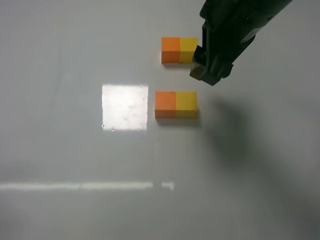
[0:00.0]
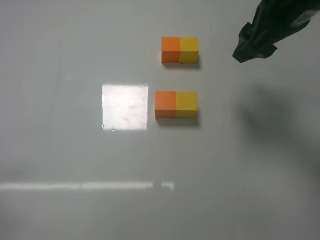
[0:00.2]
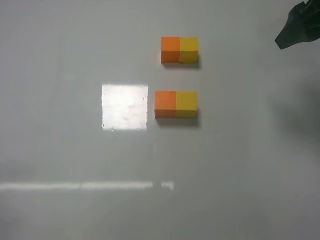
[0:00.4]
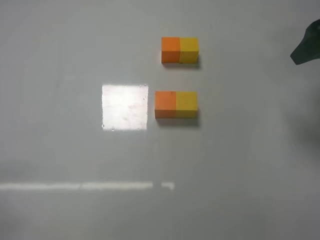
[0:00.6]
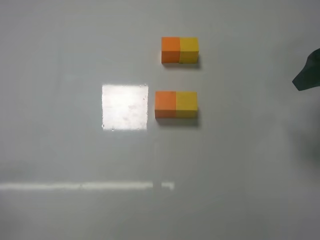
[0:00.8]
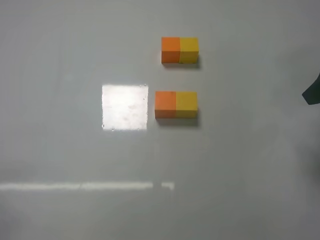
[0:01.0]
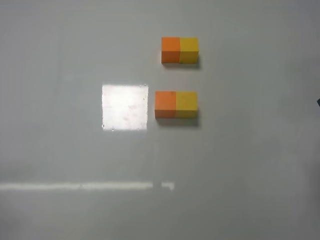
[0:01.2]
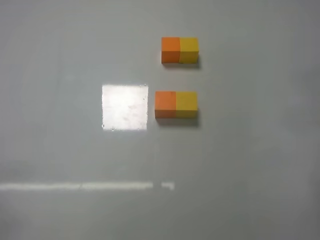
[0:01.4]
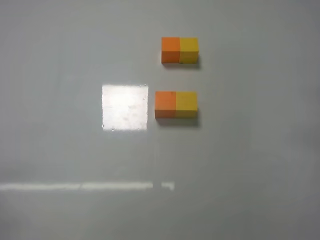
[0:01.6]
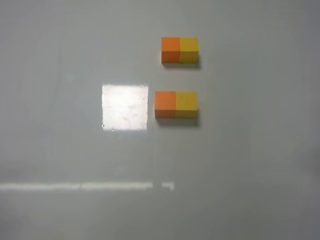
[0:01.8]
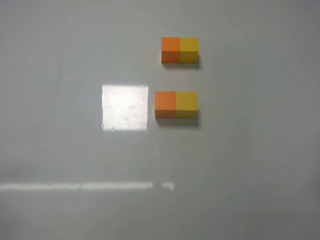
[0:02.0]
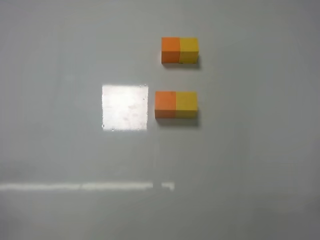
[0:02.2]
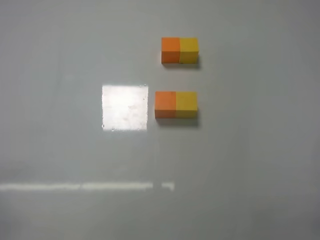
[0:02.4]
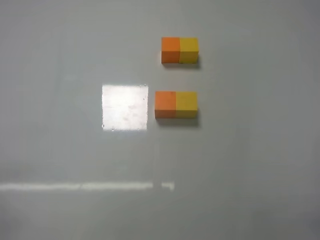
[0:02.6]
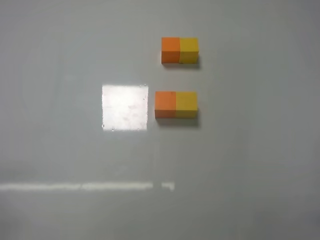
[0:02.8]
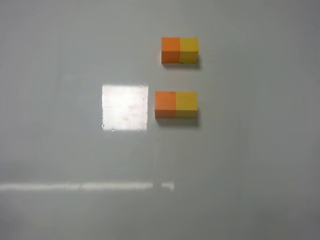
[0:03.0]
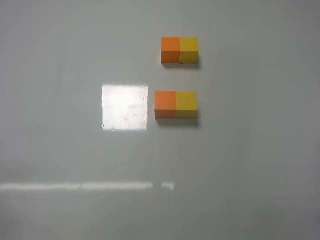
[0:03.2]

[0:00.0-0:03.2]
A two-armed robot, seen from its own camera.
Task of the whole recording: According to the building block template in front, assemble the scattered blocks together.
0:00.0 to 0:01.6: The right gripper heads to the right and backward, covering roughly 25 cm.
